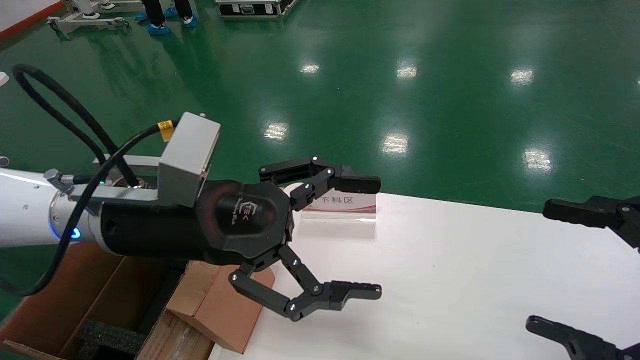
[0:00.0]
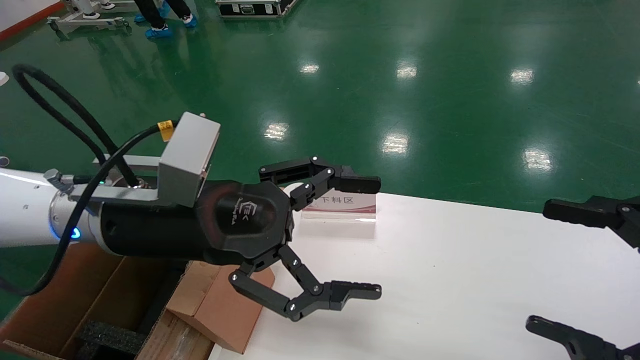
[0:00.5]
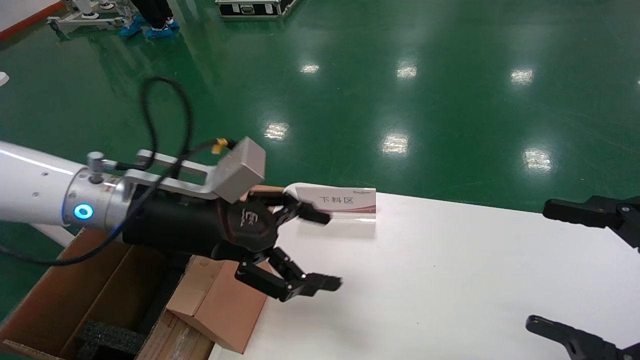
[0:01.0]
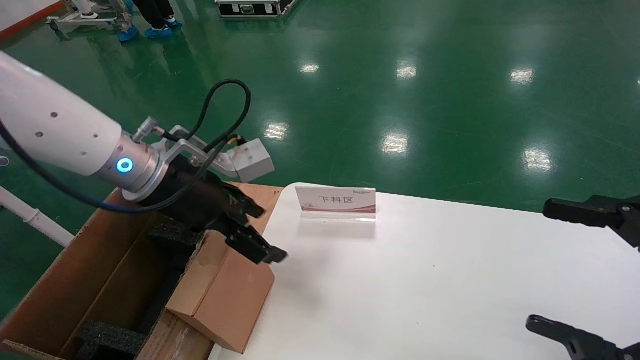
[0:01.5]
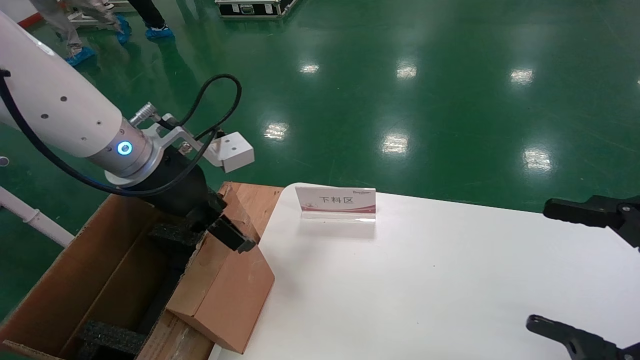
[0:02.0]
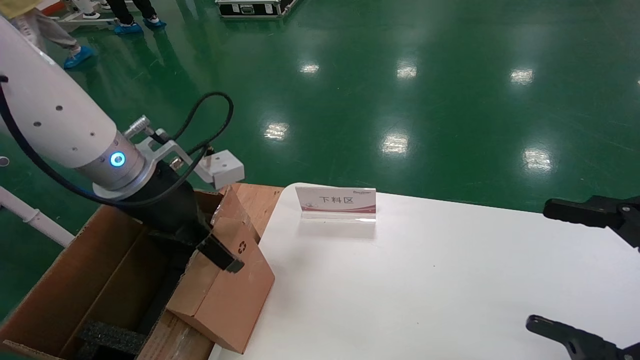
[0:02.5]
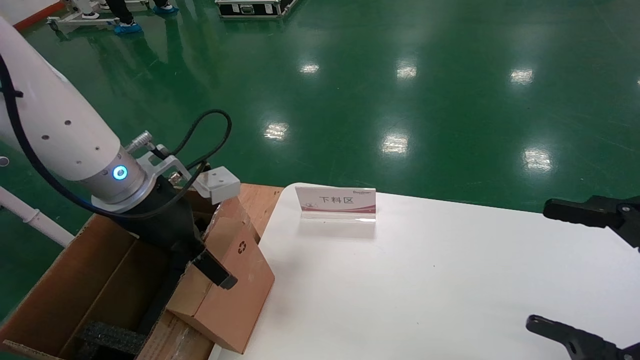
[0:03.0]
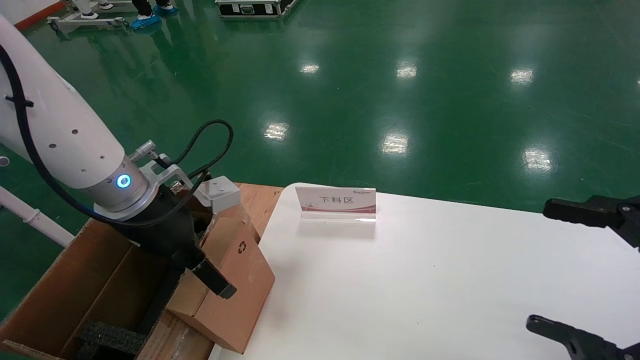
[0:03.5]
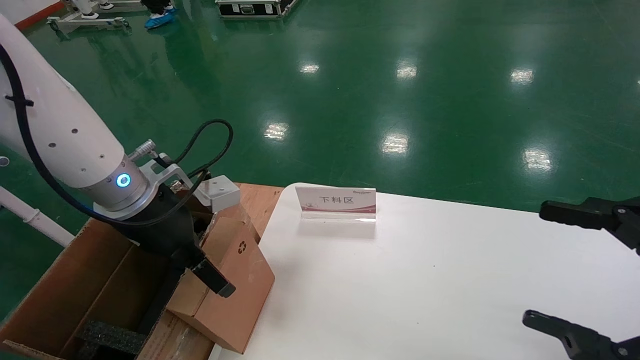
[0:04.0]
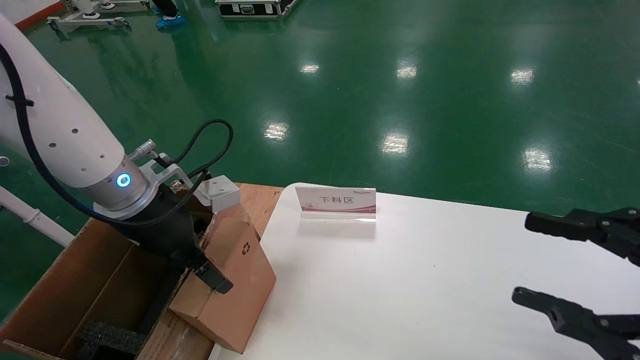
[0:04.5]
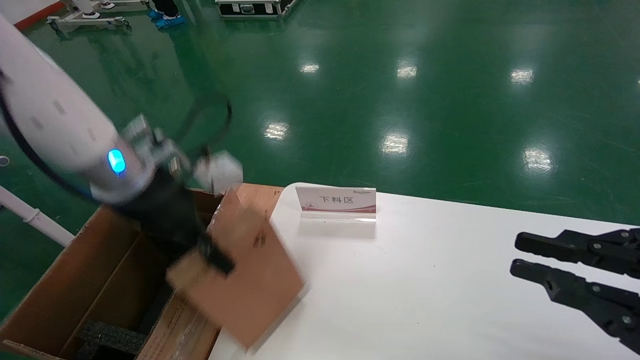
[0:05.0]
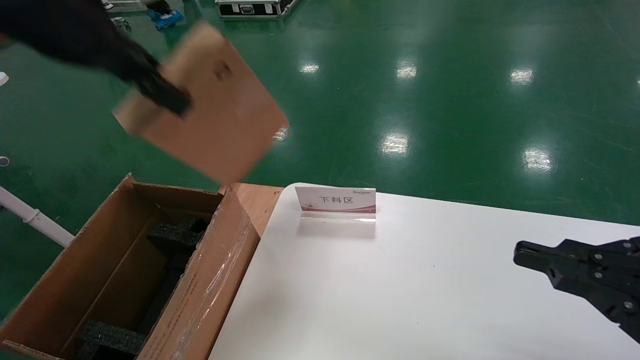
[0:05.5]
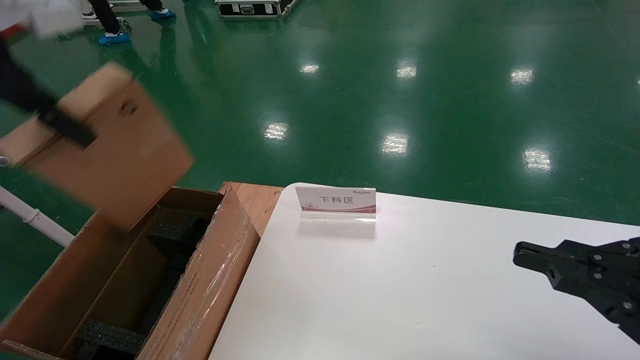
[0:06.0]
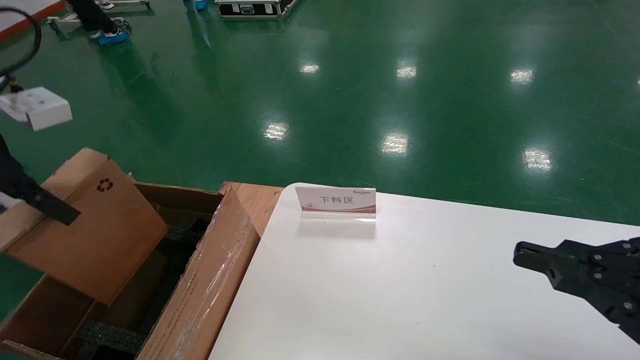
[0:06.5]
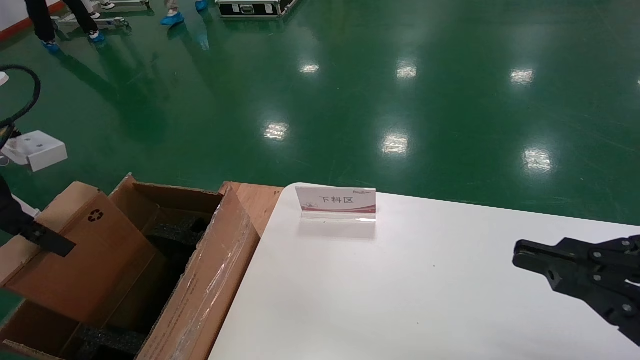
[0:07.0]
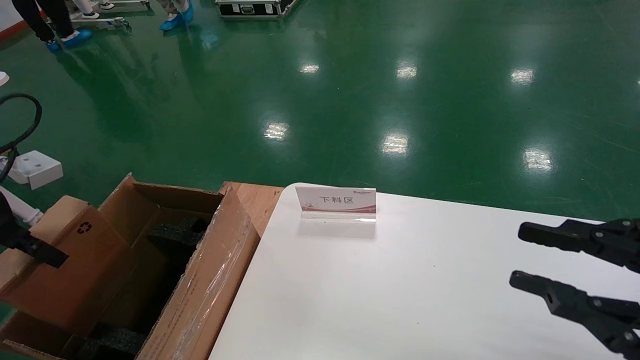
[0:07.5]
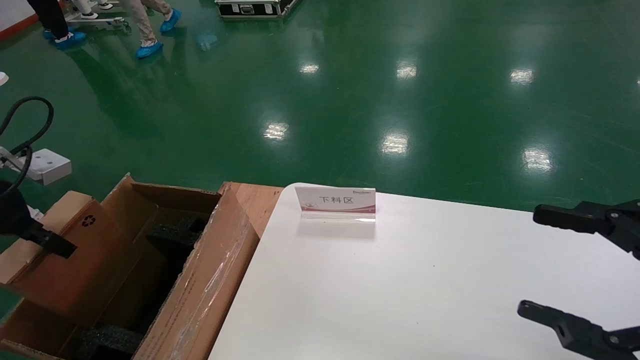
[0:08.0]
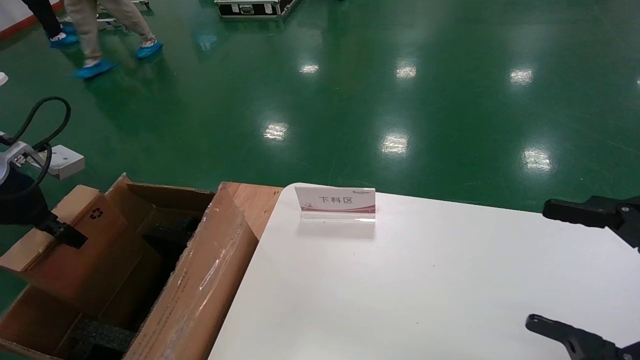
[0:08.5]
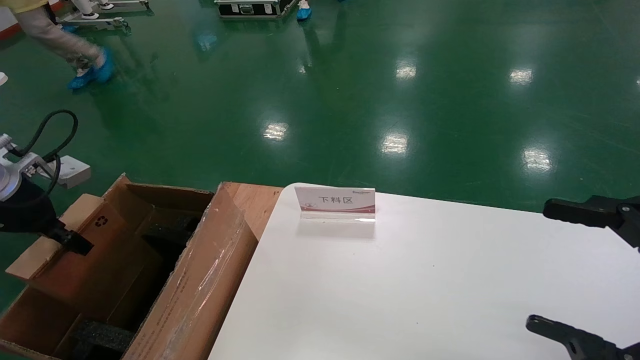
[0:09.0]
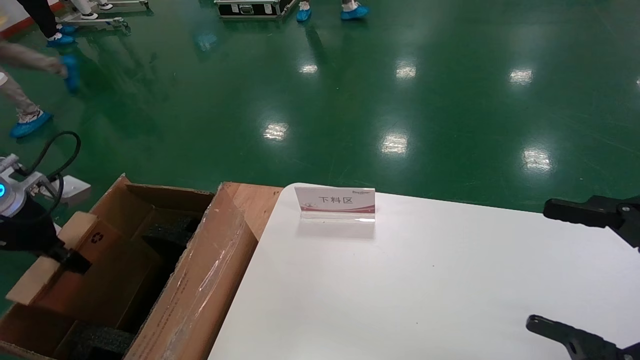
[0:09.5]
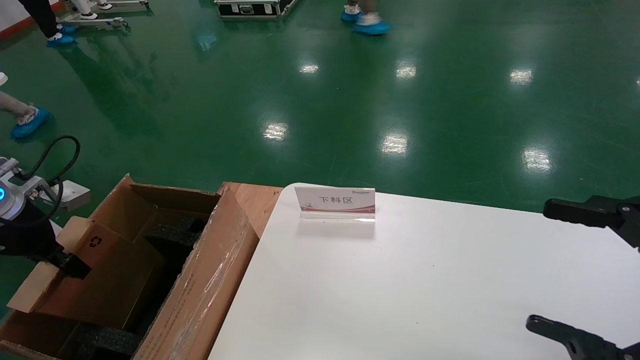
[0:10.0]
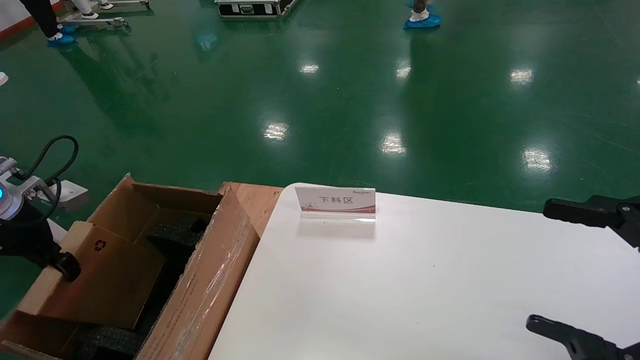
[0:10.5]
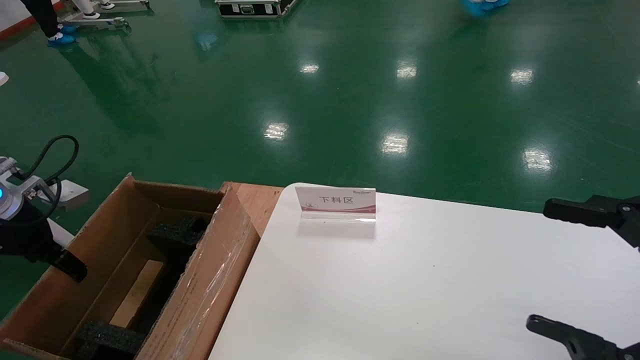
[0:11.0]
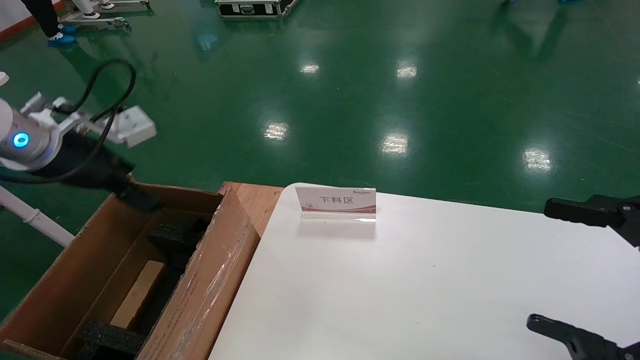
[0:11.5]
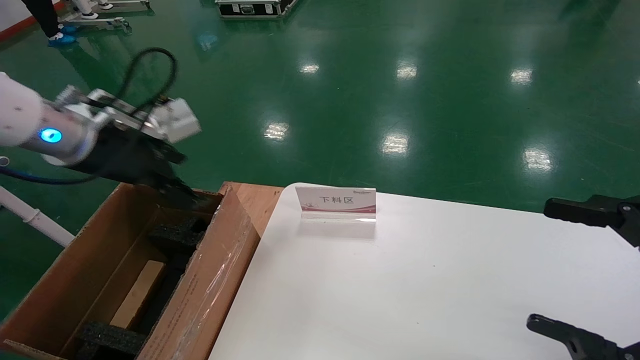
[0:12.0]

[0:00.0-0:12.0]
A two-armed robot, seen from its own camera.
Task of the whole recording: pick up the small cardboard box and load it into the large cardboard box.
Step, 0:01.0 to 0:05.0: Pick up the mouse and power cord box.
Step, 0:05.5 to 0:11.0: Place the mouse and power cord box into the case.
0:00.0 to 0:02.0: The left gripper goes approximately 5 cm forward.
0:02.0 to 0:04.0: The grippers stay close to where they were, moving slightly.
0:04.0 to 0:06.0: The right gripper closes, while the left gripper goes roughly 25 cm upward, to the left and backward, and closes.
0:06.0 to 0:08.0: The right gripper opens; the left gripper shifts approximately 20 cm downward and to the left.
0:08.0 to 0:10.0: The left gripper heads downward, covering about 5 cm.
0:10.0 to 0:12.0: The left gripper shifts roughly 20 cm to the right and upward, and opens.

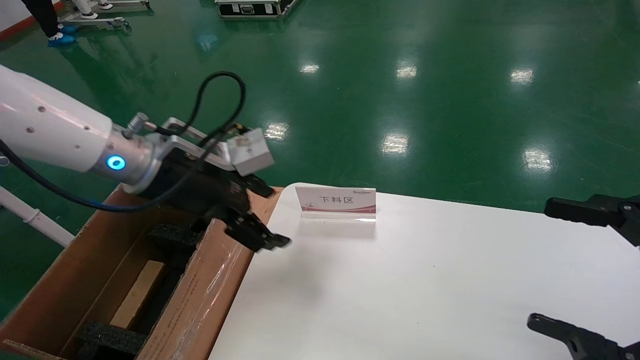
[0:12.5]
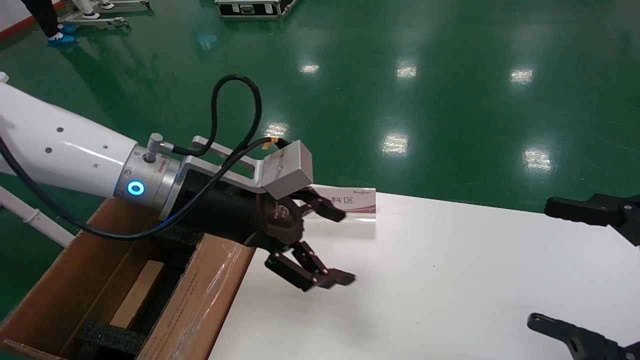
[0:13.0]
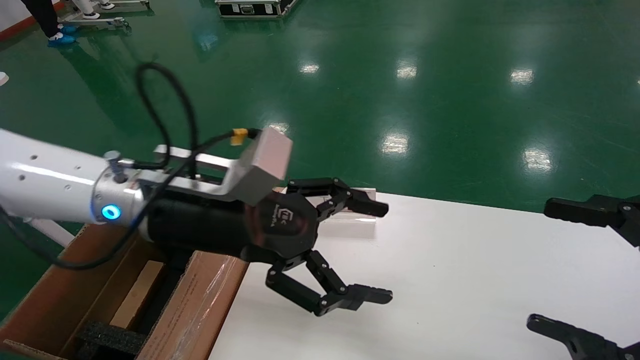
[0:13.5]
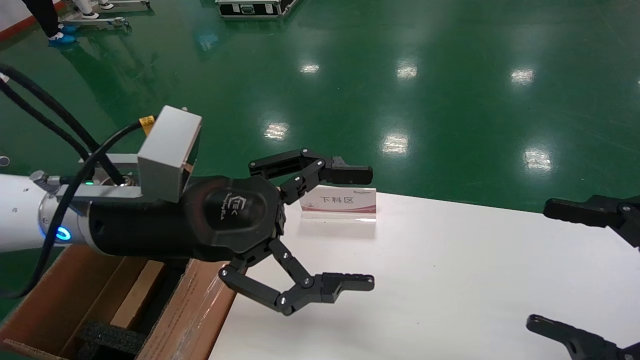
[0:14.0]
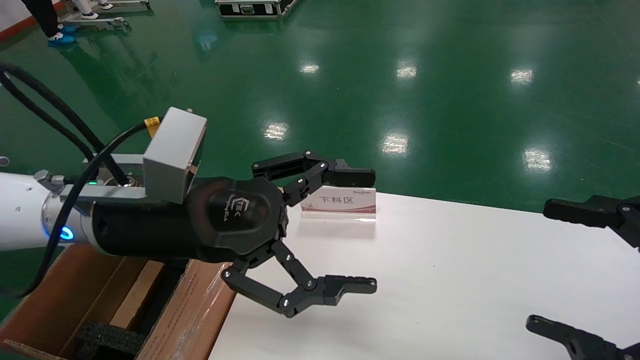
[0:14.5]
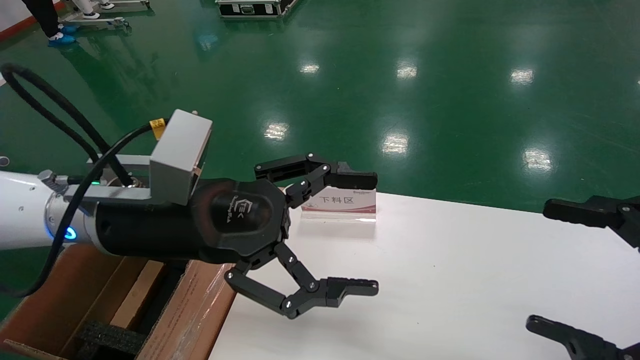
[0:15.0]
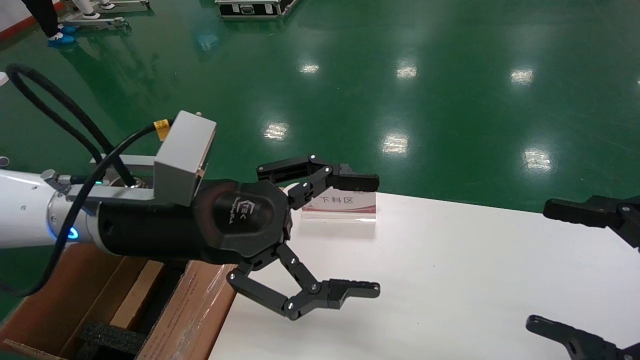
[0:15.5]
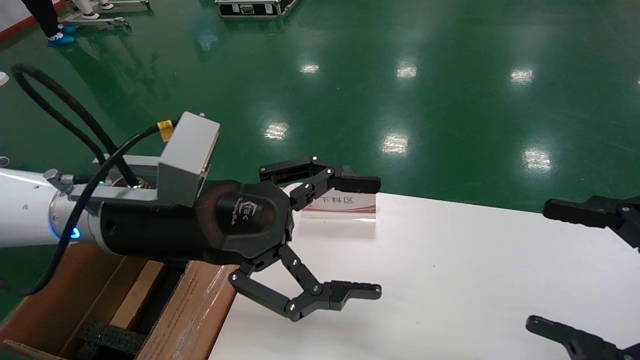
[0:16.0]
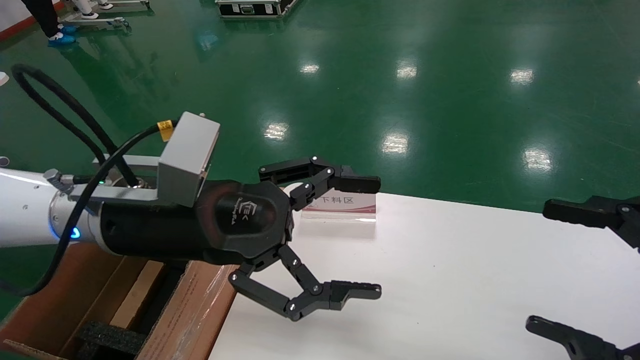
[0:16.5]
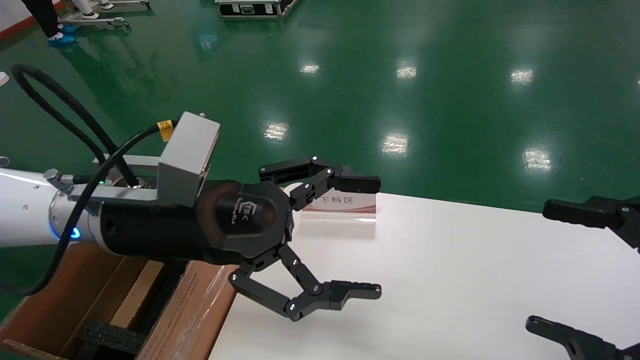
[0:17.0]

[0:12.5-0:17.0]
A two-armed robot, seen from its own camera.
Task of the whole recording: pick up the small cardboard box and load it into the large cardboard box.
0:12.5 to 0:14.5: The left gripper moves backward, roughly 10 cm.
0:14.5 to 0:17.0: Both grippers stay put.

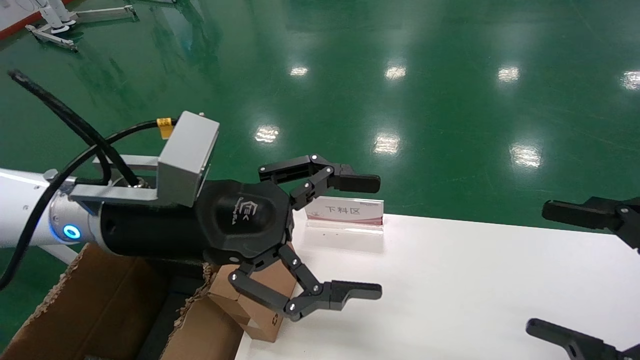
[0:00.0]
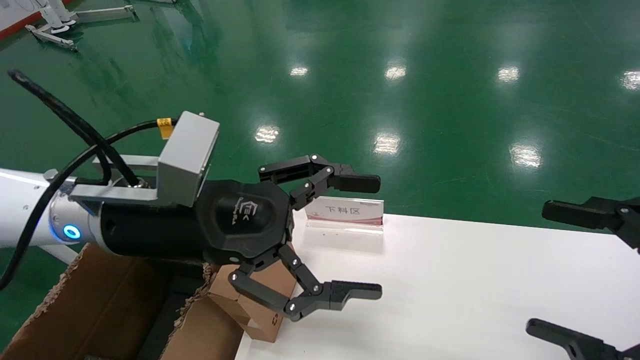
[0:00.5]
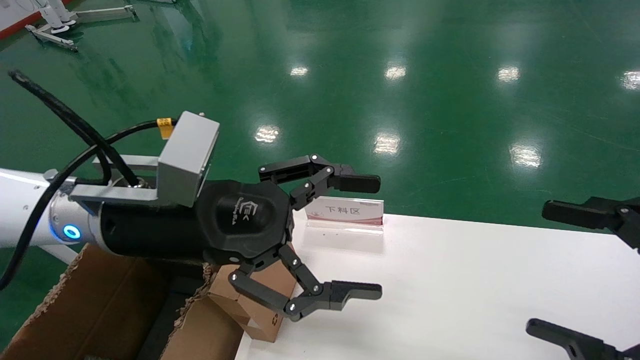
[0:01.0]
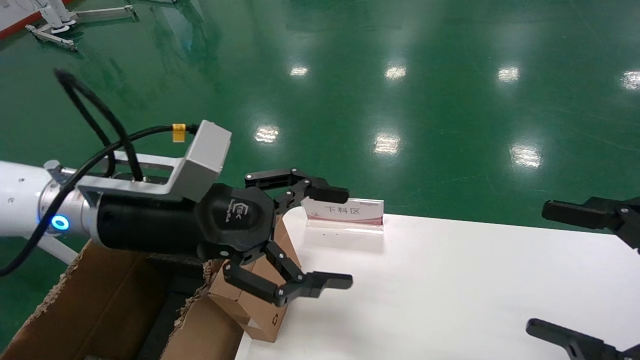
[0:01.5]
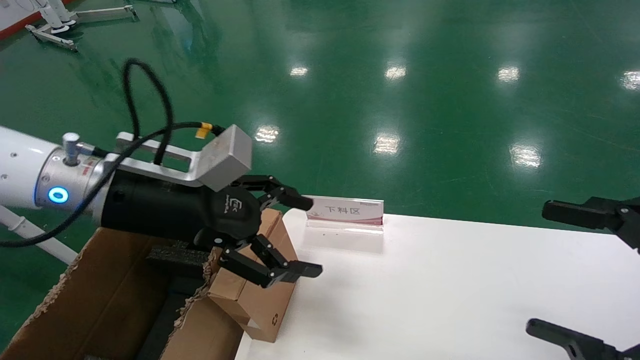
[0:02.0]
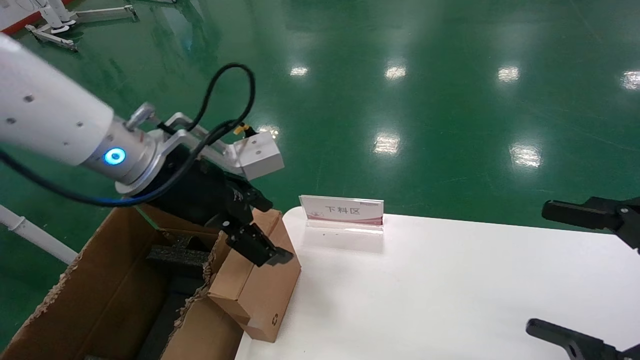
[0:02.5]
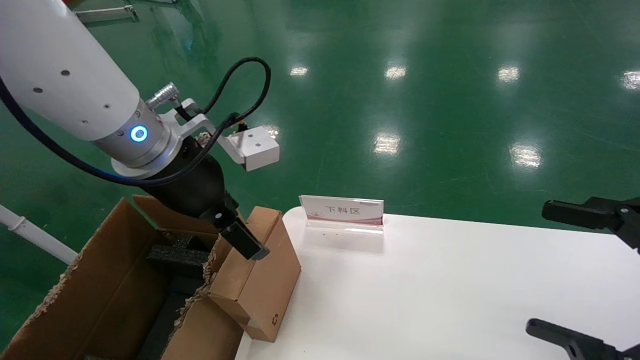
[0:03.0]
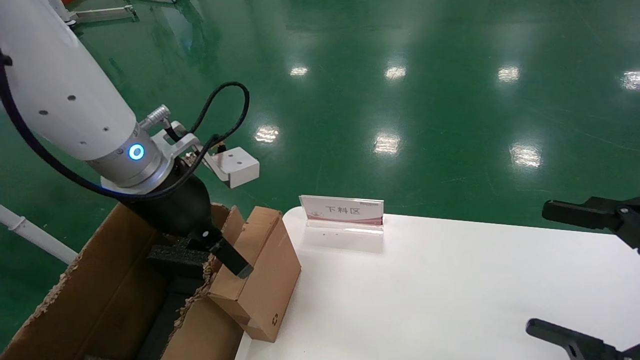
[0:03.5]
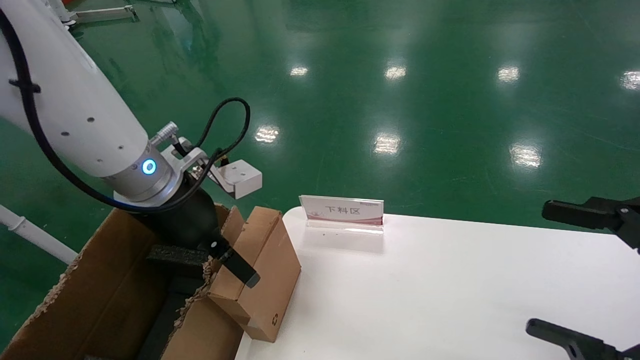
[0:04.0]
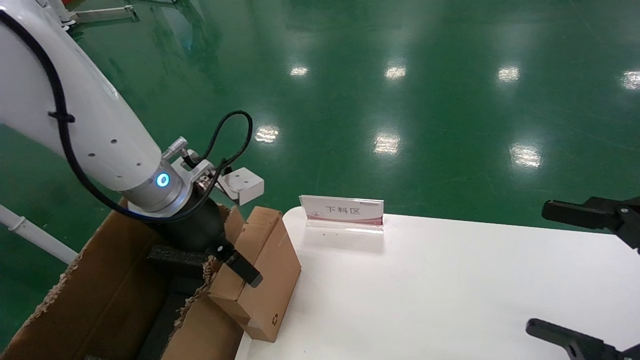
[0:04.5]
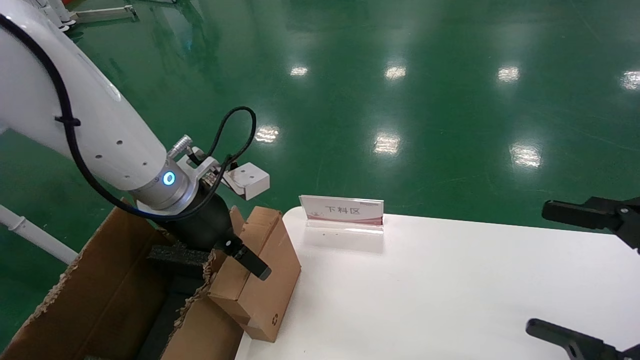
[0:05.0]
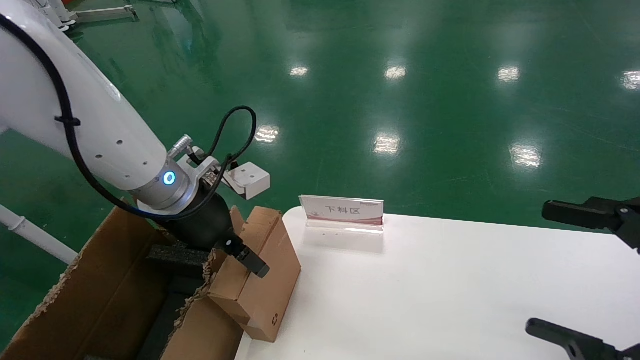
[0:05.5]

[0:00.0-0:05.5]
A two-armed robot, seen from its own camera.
Task of the whole recording: pick up the small cardboard box and load it into the large cardboard box.
0:03.5 to 0:05.5: The left gripper shifts by approximately 5 cm.
